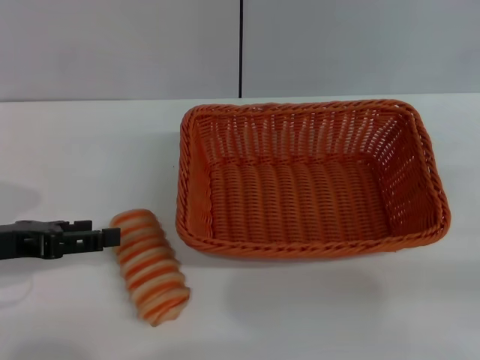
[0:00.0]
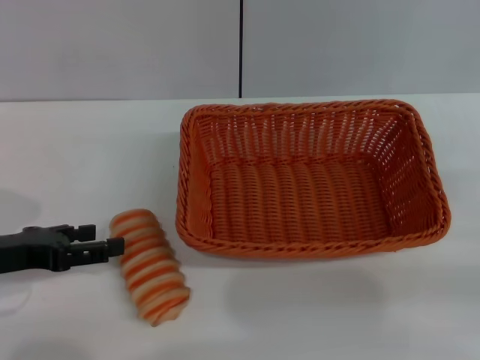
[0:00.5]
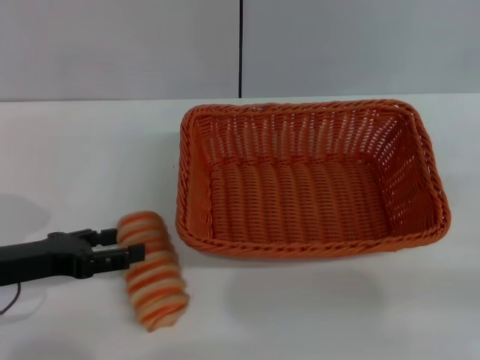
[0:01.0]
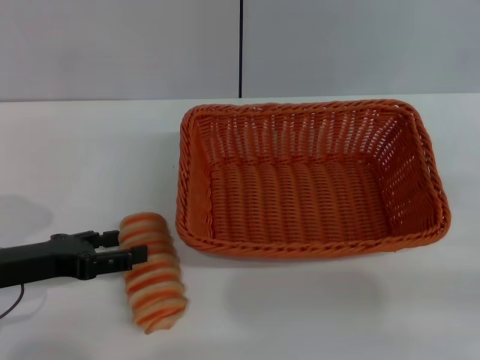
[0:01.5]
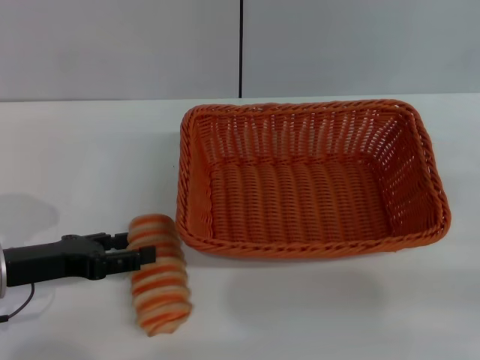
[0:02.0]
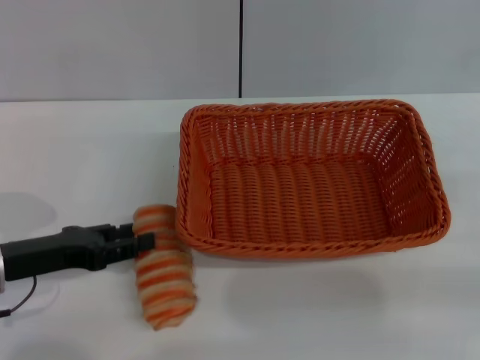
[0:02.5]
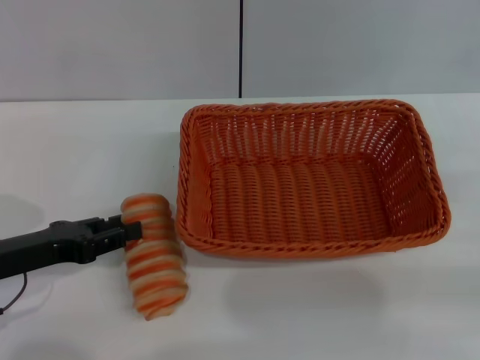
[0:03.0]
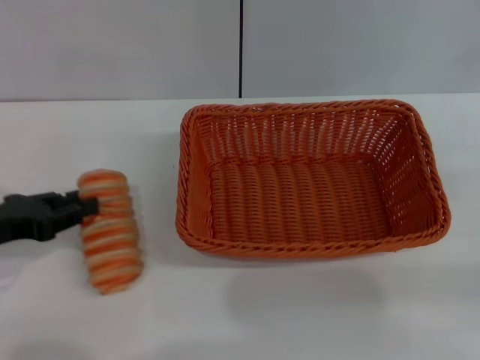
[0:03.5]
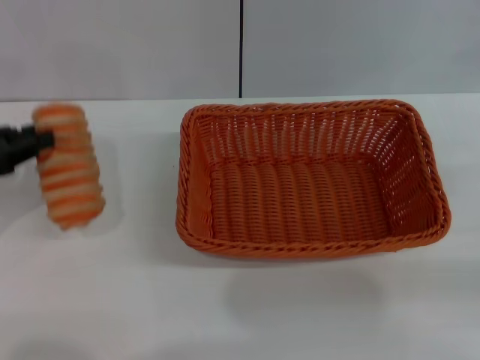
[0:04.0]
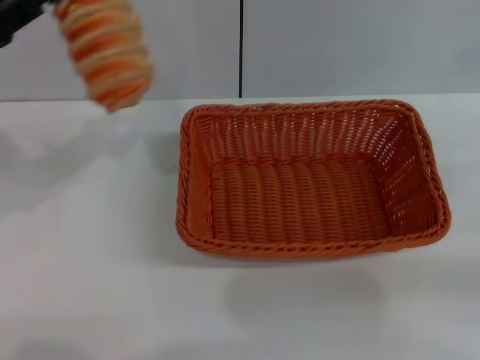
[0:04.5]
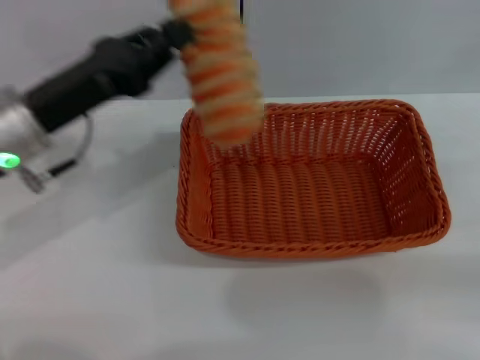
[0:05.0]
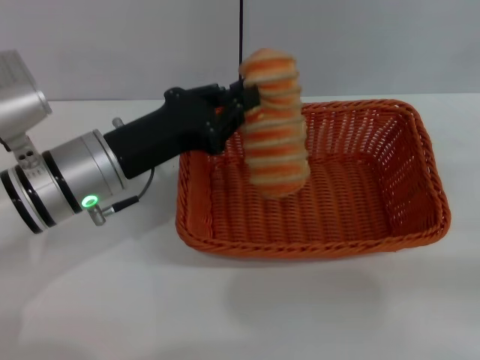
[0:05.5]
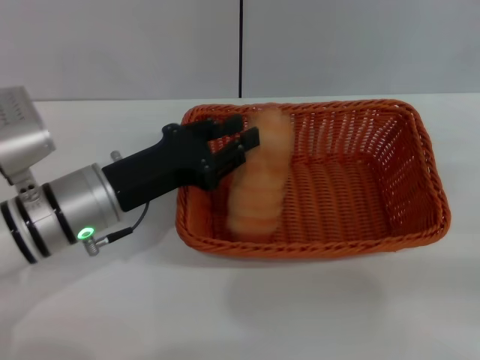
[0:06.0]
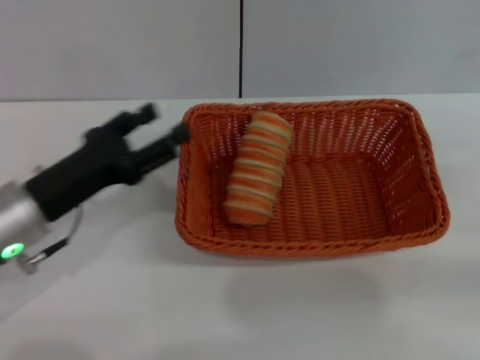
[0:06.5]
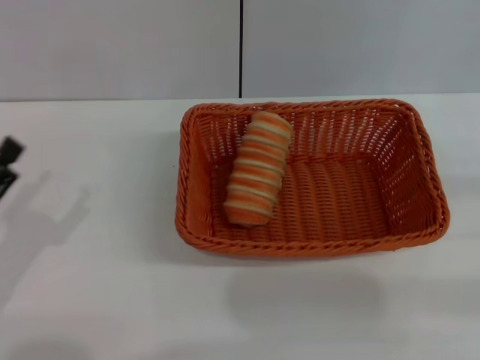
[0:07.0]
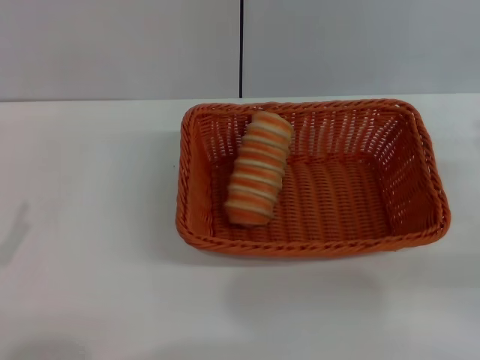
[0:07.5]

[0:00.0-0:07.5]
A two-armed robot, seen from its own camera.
Step, 0:00.0 to 0:03.5: Pick up the long bread with the left gripper.
Step, 0:04.0 to 0:06.0: Place the long bread into the light basket with the left gripper.
0:00.0 to 0:02.0: The left gripper goes roughly 5 cm downward.
0:02.0 to 0:04.0: The left gripper travels upward and to the left by roughly 10 cm, and closes up.
0:04.0 to 0:05.5: The left gripper travels to the right by some 15 cm.
0:05.5 to 0:07.5: The left gripper goes some 25 cm to the left and backward, and opens its fingers. The right gripper travels downward by roughly 5 cm.
